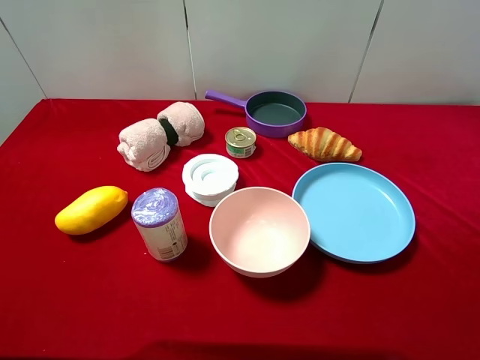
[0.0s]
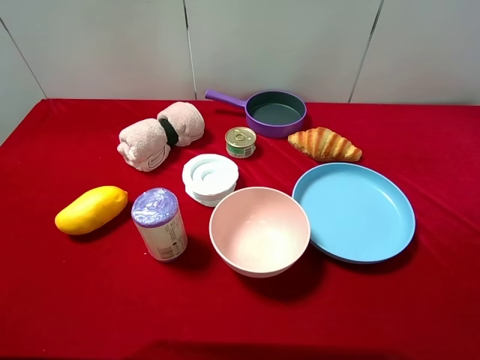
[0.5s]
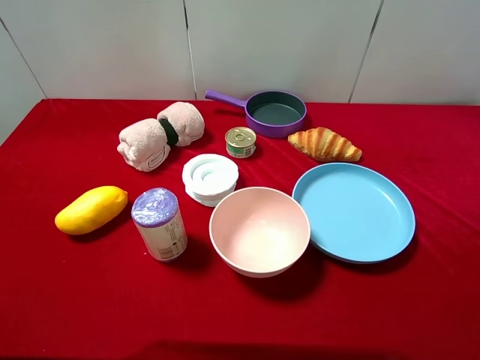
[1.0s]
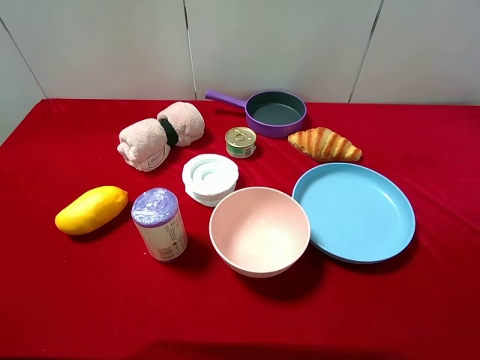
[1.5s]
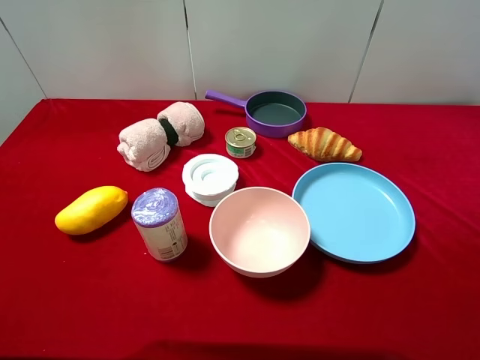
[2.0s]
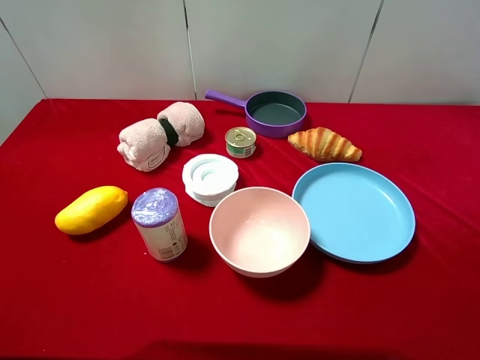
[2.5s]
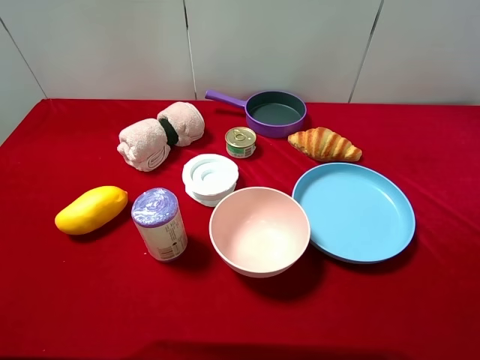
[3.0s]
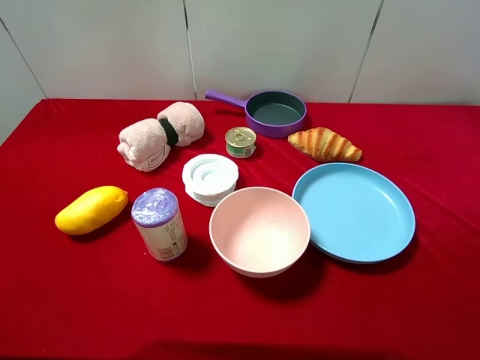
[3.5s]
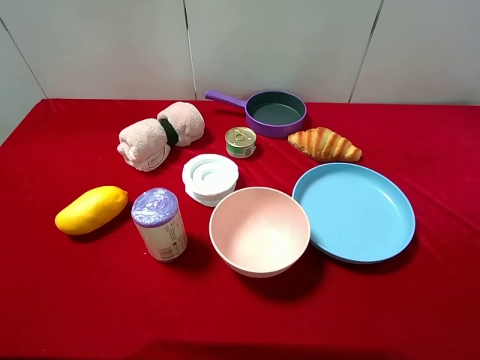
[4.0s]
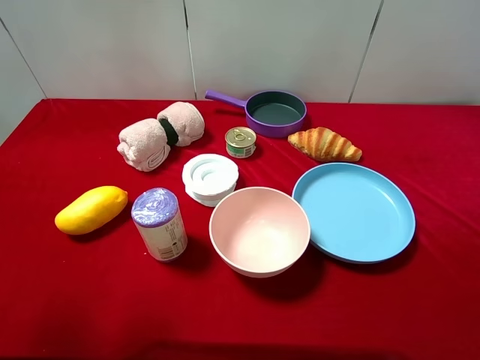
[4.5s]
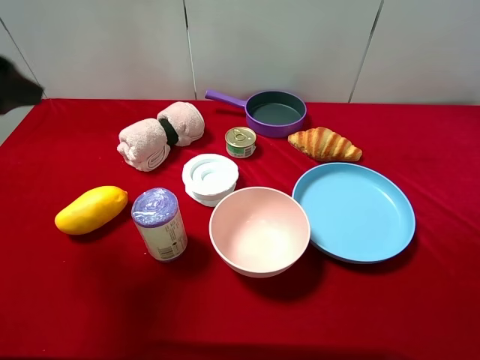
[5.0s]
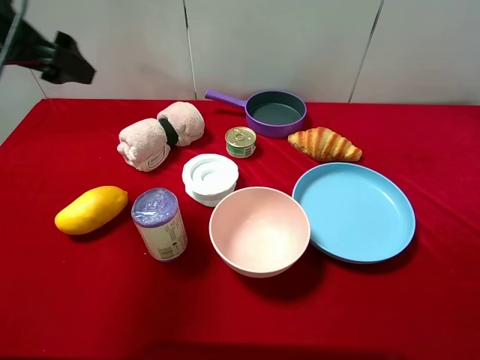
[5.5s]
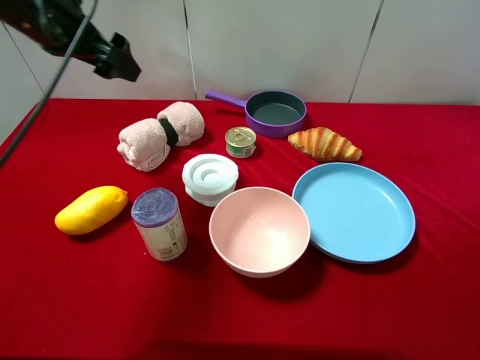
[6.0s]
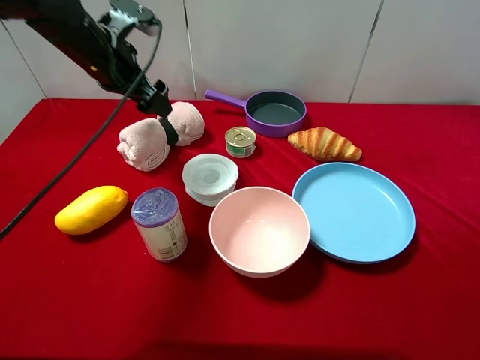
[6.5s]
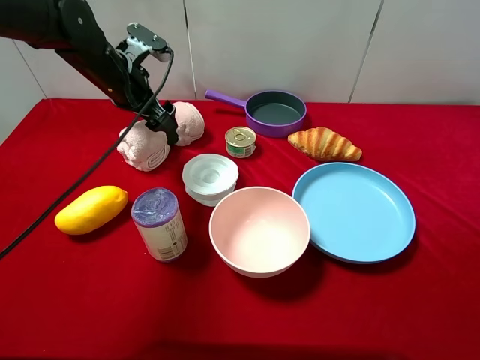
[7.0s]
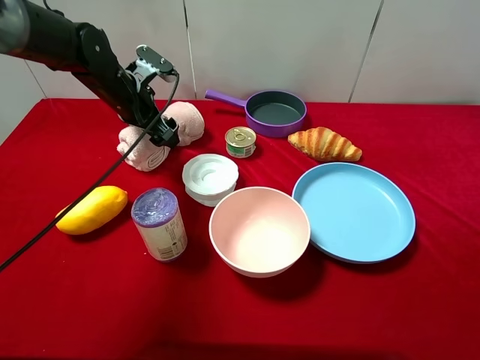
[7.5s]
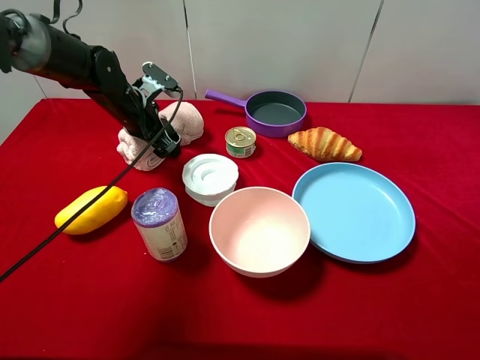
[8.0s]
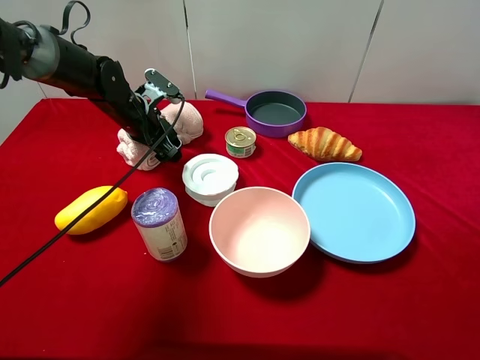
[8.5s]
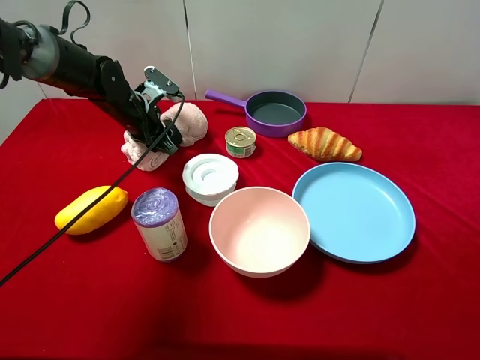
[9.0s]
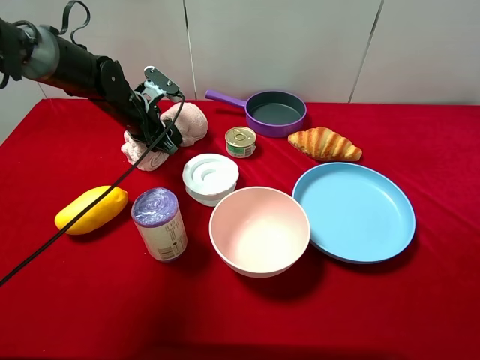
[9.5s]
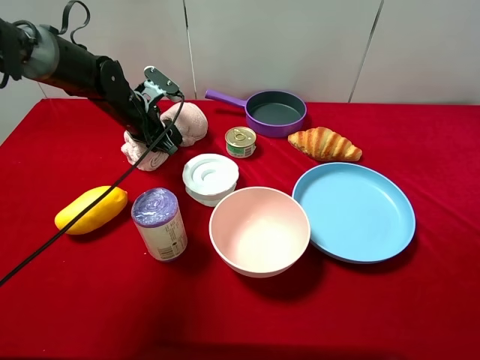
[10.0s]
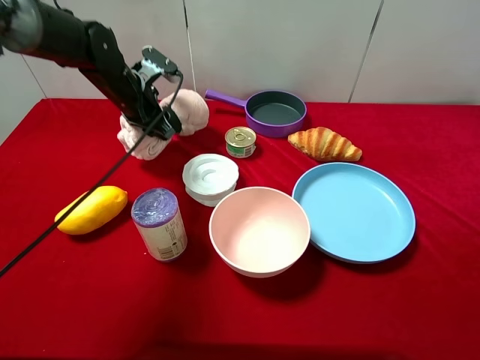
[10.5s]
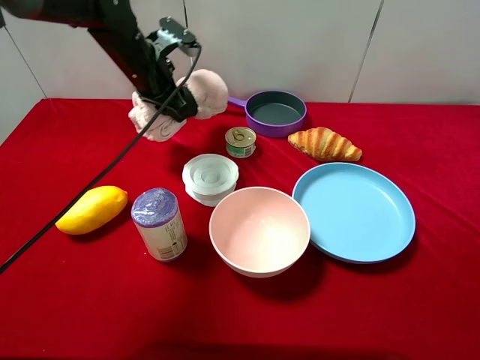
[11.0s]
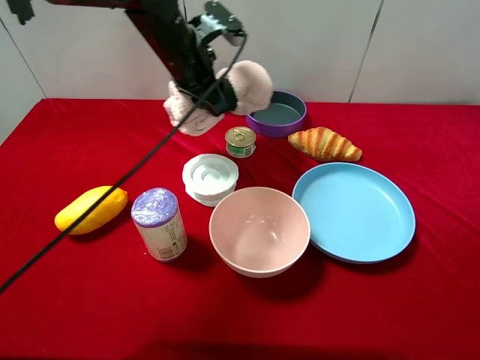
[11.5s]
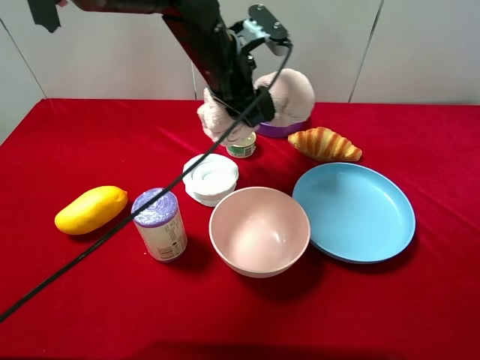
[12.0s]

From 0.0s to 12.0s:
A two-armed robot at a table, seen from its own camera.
Task of the whole recording: pick up an item with a gripper and place it in a random container on the desktop.
From 0.0s to 2.0s: The two grippers keep their place.
From 4.0s to 6.0s: The left gripper moves forward, some 35 cm.
From 6.0s to 8.0s: The left gripper heads downward and forward, covering approximately 20 cm.
From 8.0s to 10.0s: The left gripper closes up.
From 10.0s to 12.0s: The left gripper moves to the right and upward, roughly 20 cm.

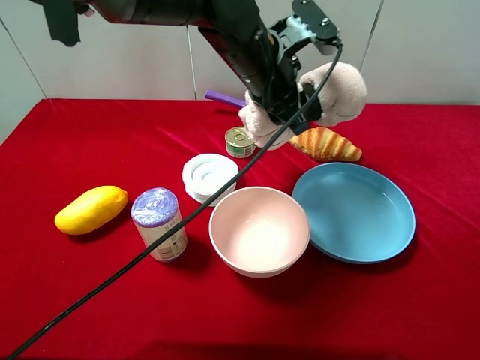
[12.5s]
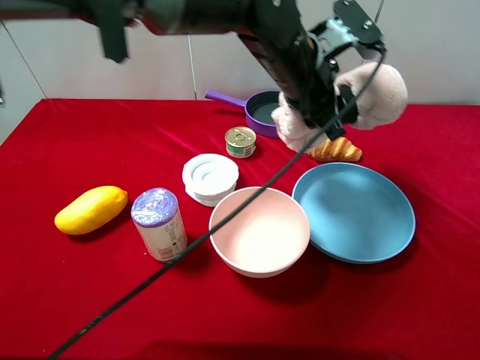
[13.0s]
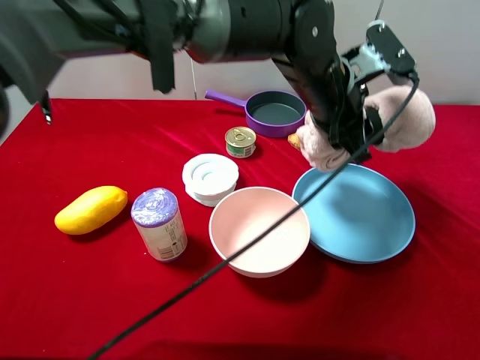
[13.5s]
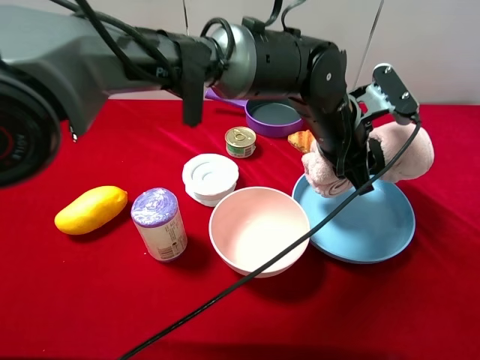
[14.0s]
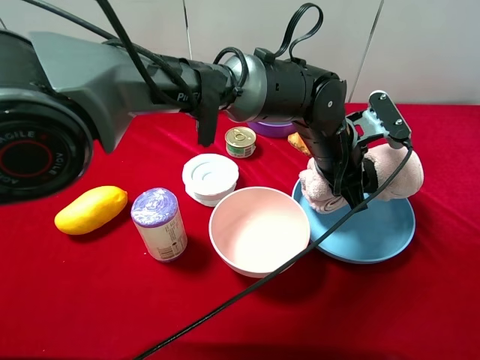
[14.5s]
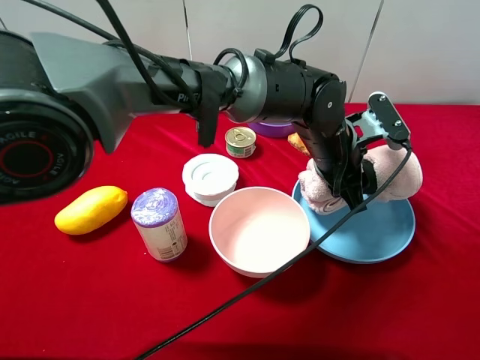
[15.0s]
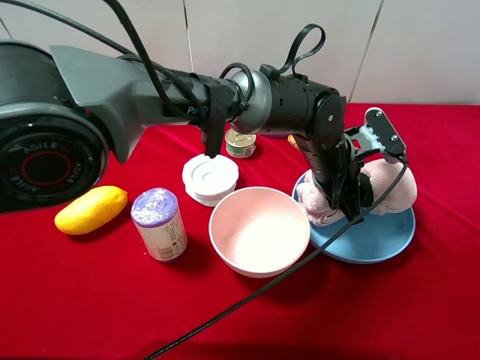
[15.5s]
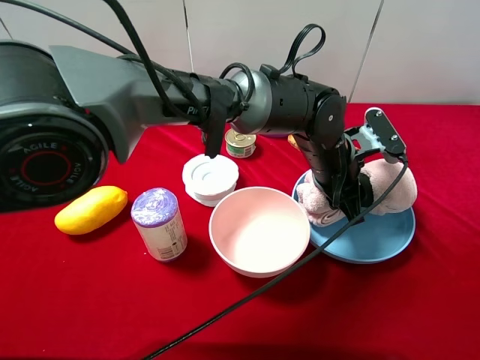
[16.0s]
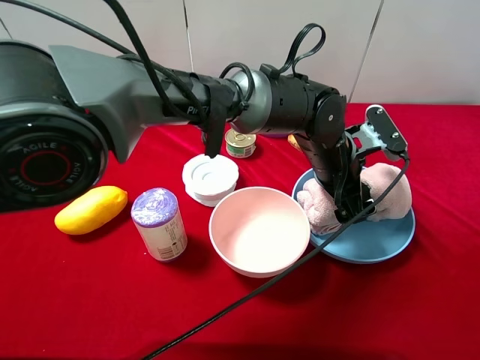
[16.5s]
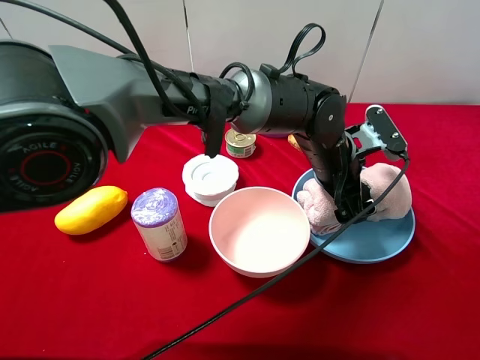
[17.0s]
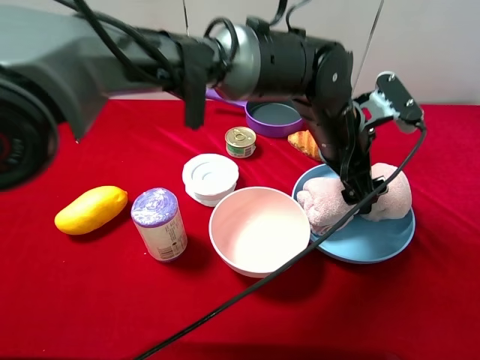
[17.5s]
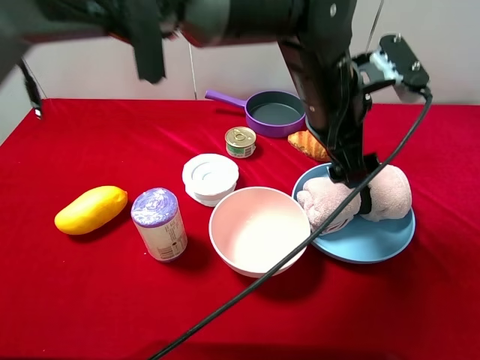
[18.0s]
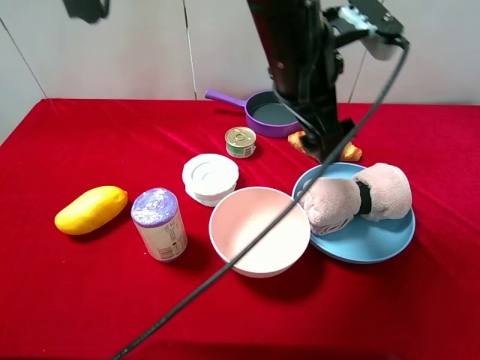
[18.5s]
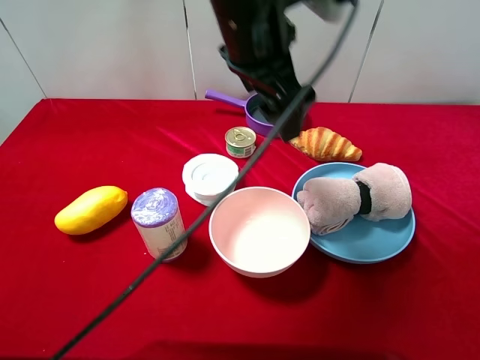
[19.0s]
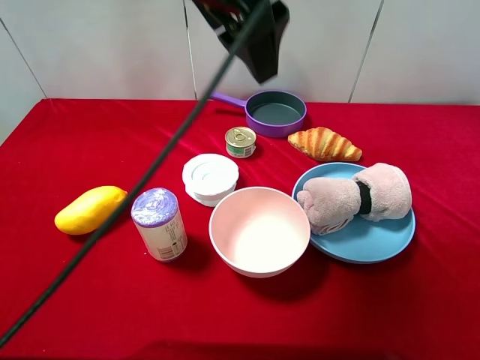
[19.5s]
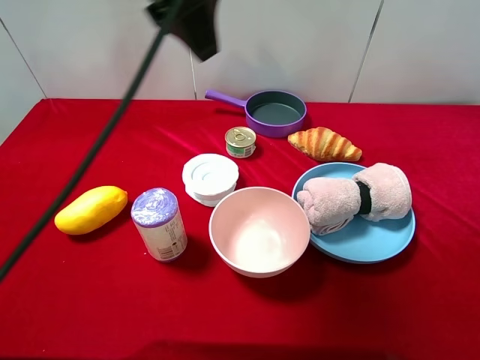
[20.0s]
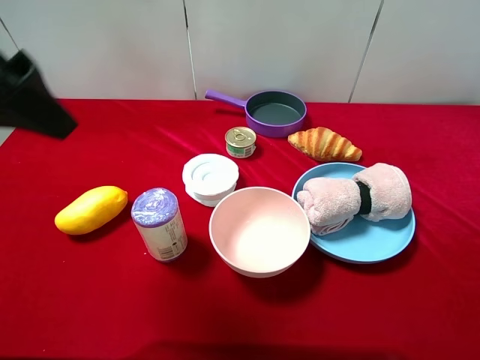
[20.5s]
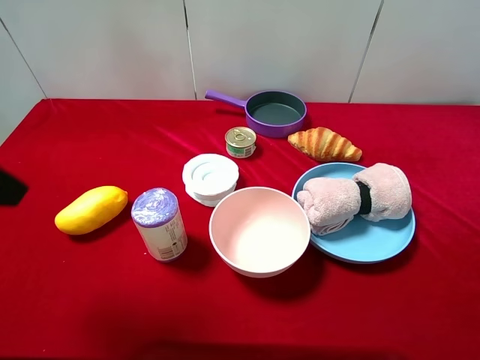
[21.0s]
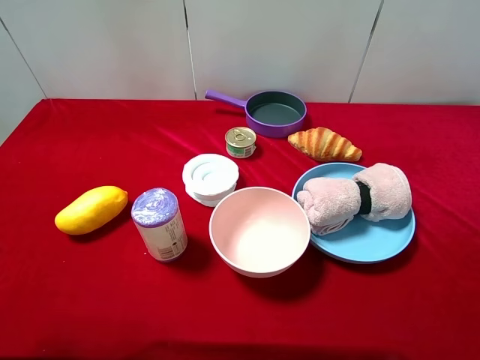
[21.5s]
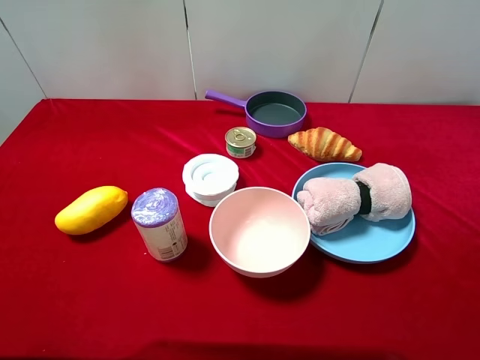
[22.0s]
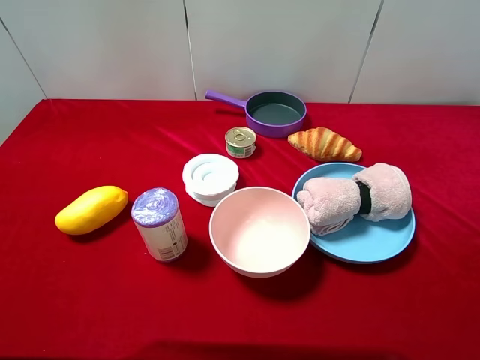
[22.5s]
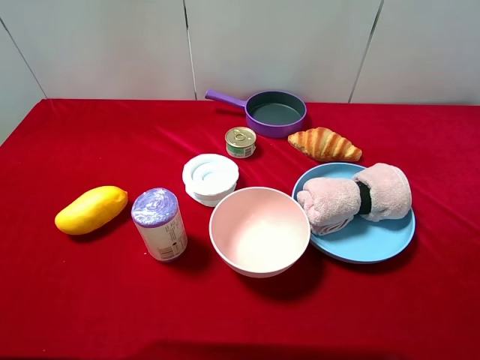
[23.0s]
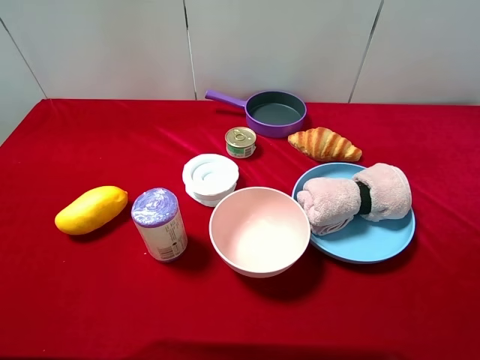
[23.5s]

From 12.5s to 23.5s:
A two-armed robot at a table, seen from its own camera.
Task of the whole recording: pick up an item with a gripper and place it in a random container on the desktop.
From 12.5s to 14.5s: The left gripper moves to the right and downward, some 15 cm.
From 14.5s to 16.0s: The grippers move only a little.
From 16.0s to 18.0s: The left gripper shifts some 10 cm upward, and opens up.
From 18.0s to 20.0s: The left gripper travels to the left and upward by roughly 25 cm.
From 20.0s to 21.5s: The left gripper shifts about 30 cm to the left, backward and downward.
